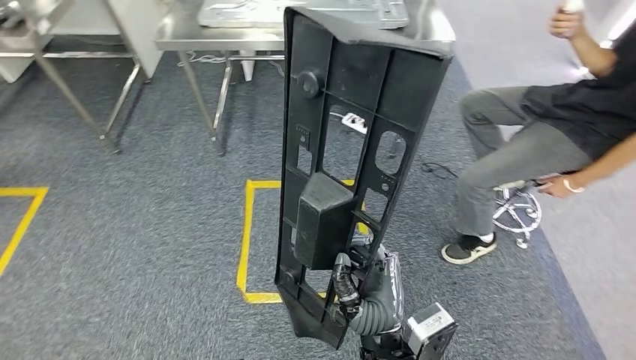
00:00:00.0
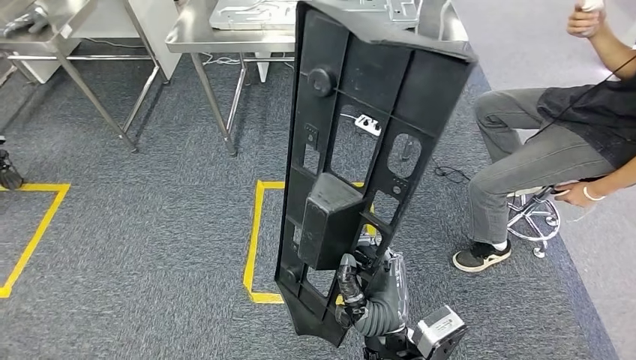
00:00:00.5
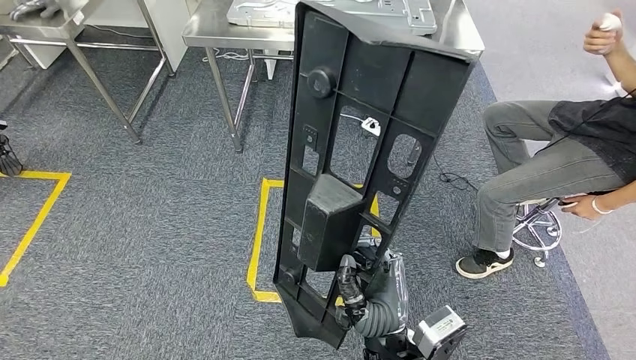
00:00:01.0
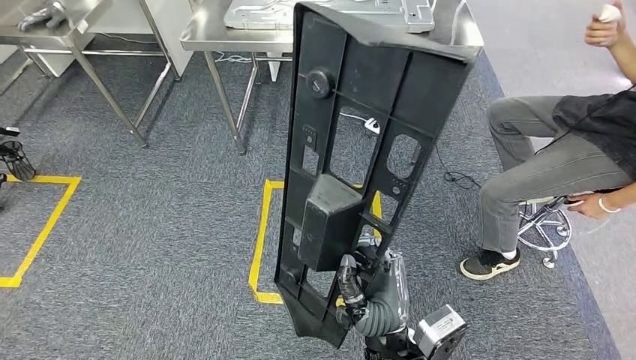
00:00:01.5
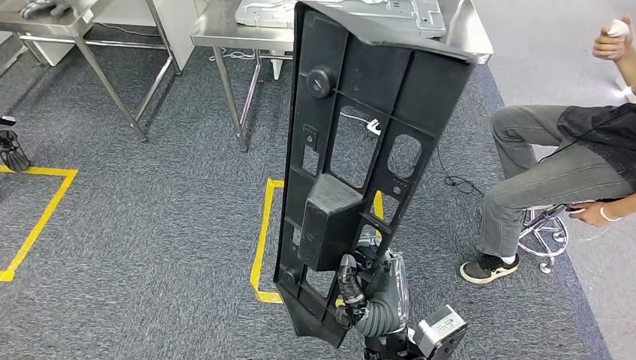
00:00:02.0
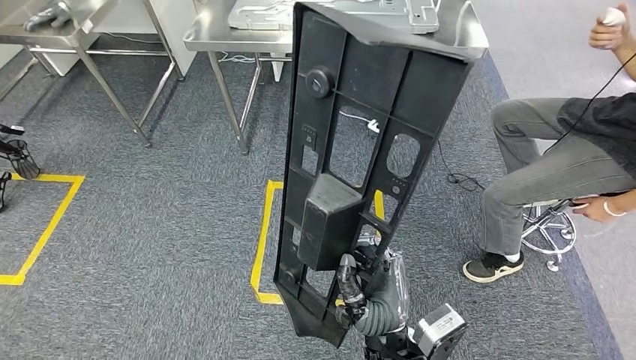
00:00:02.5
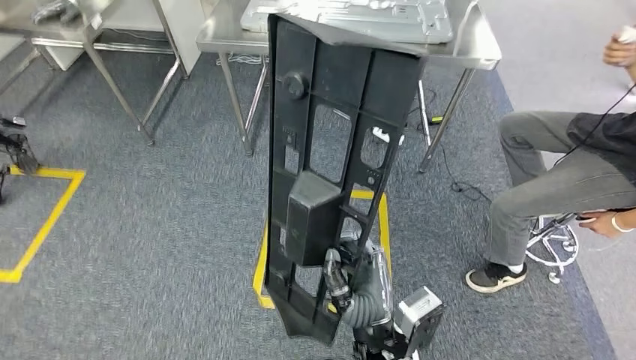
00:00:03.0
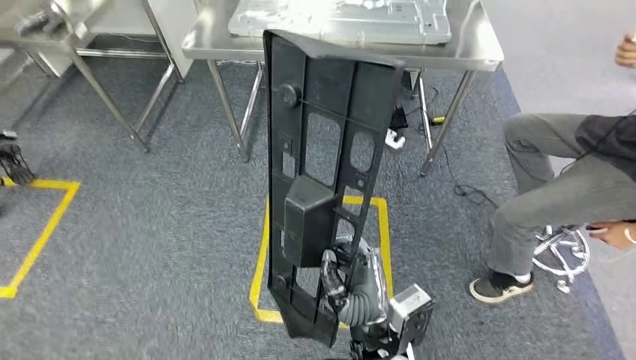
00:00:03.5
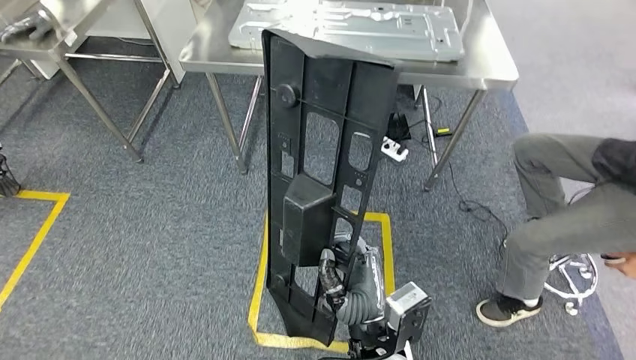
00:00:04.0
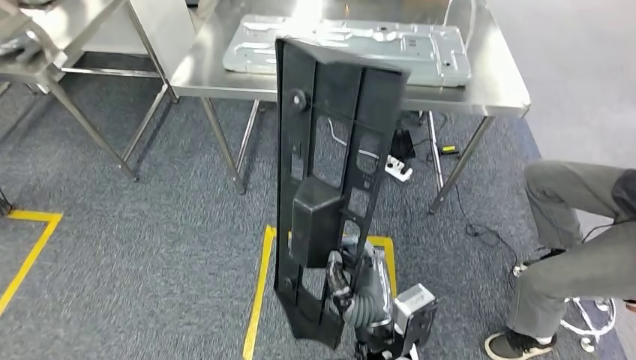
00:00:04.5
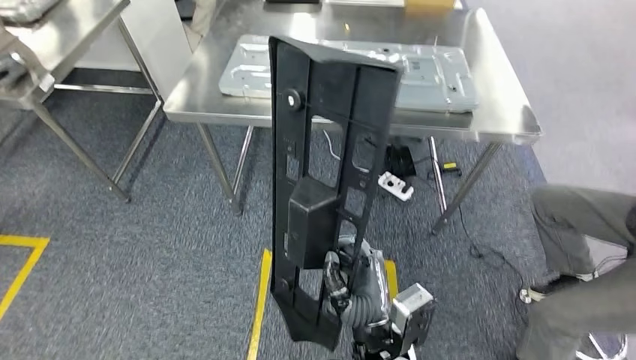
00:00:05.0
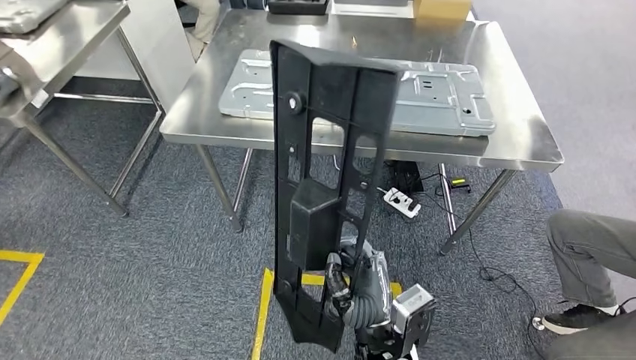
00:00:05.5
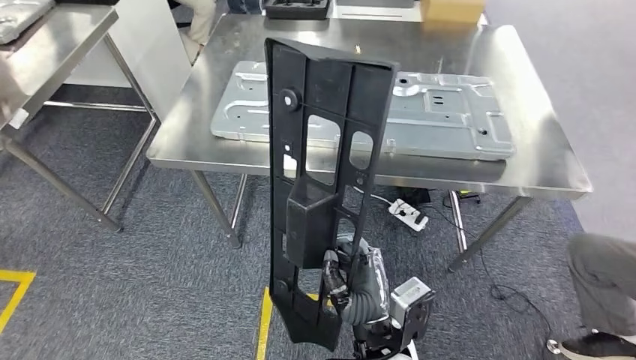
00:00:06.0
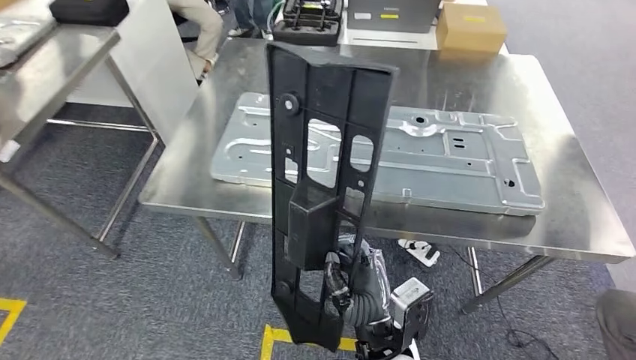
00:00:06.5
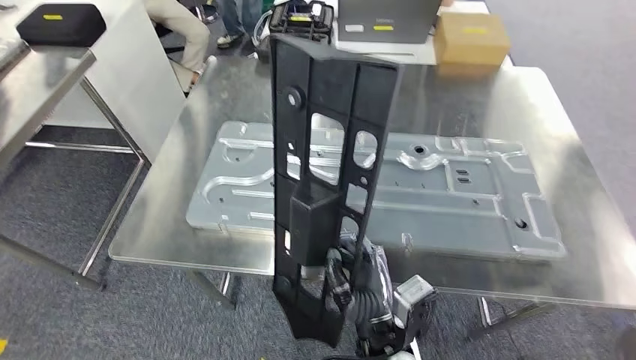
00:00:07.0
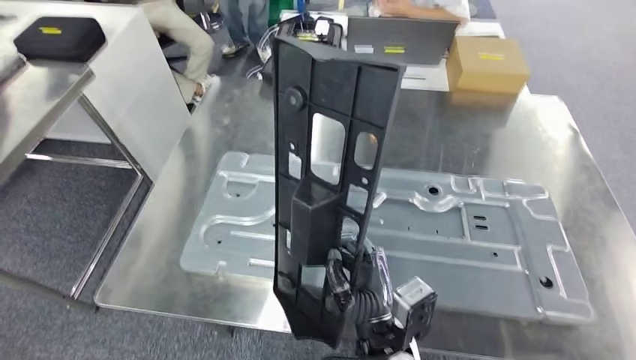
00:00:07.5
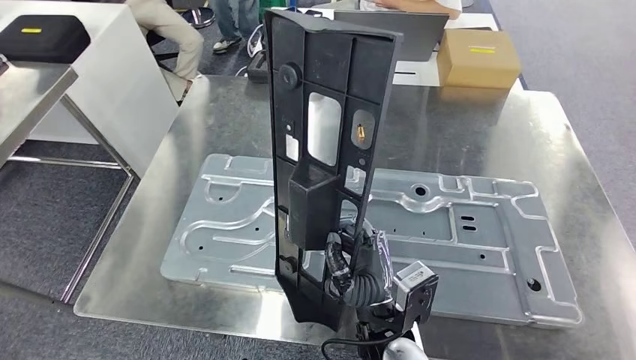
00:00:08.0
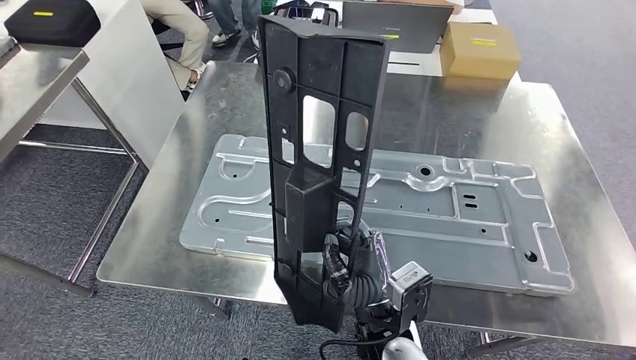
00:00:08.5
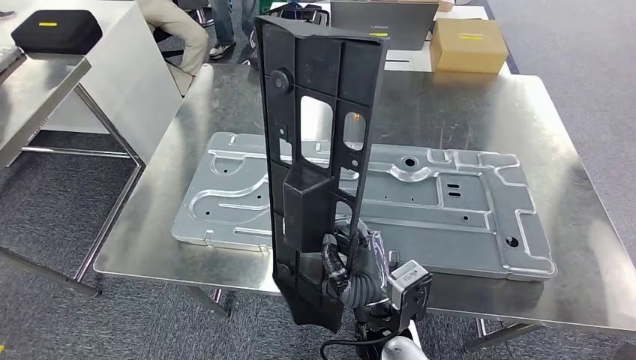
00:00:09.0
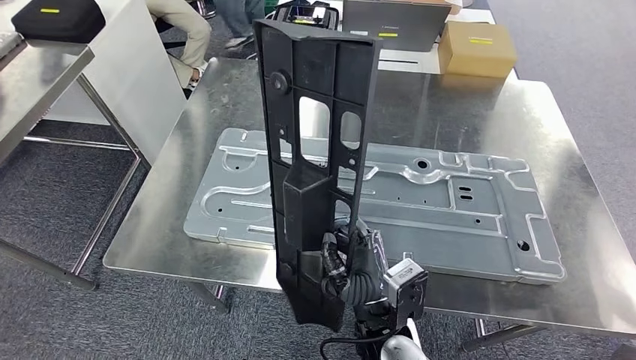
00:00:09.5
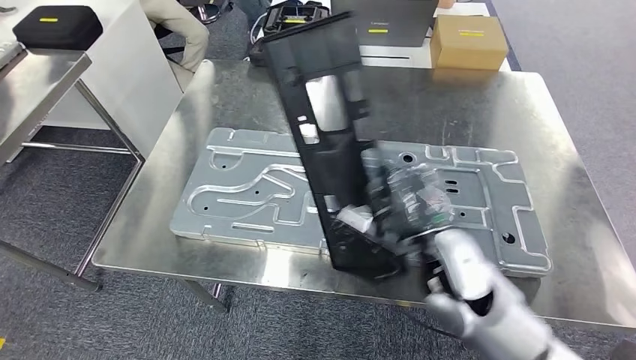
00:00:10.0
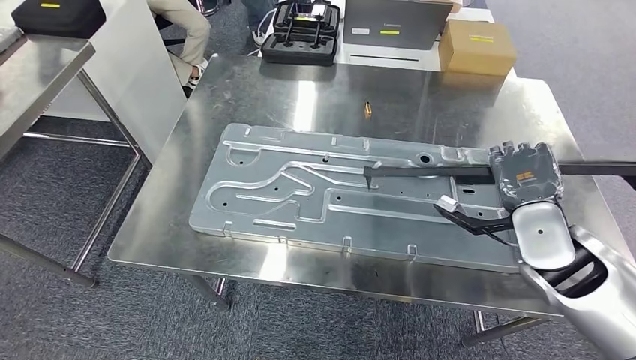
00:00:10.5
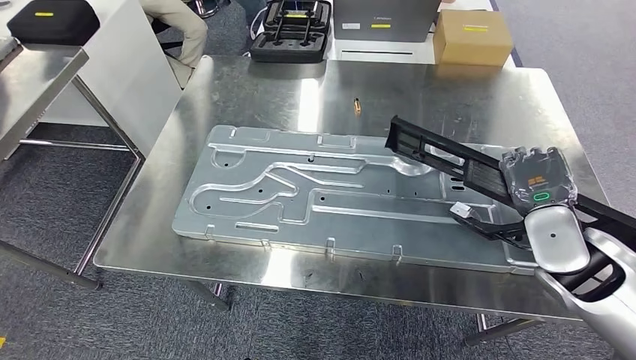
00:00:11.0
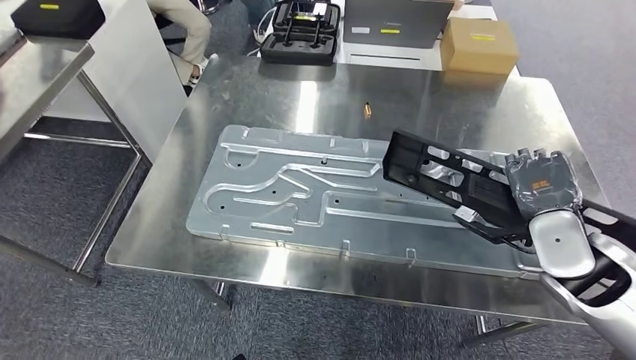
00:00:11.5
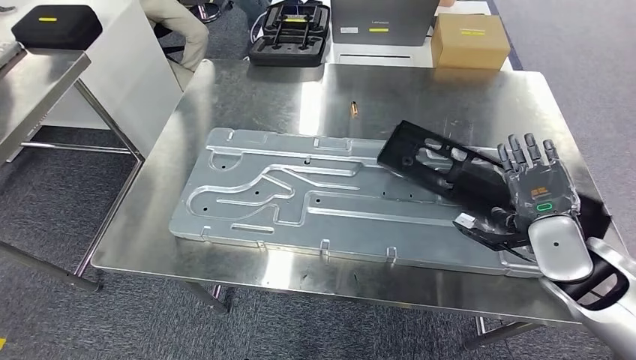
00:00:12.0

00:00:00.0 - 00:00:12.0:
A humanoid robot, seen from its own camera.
Step, 00:00:00.0 - 00:00:06.5: Move the large material to the workbench.

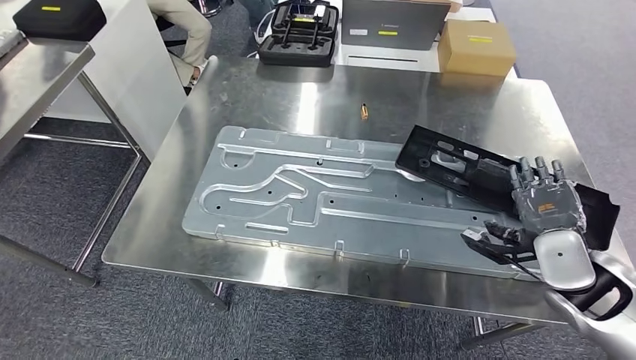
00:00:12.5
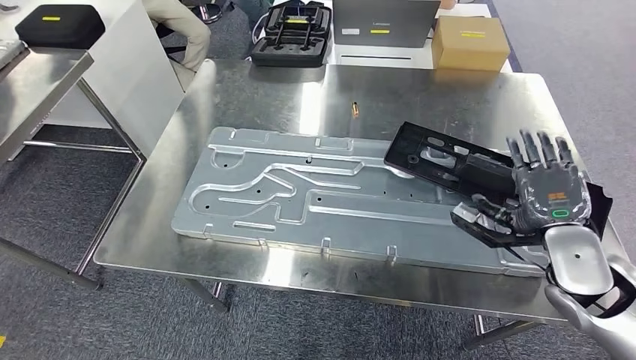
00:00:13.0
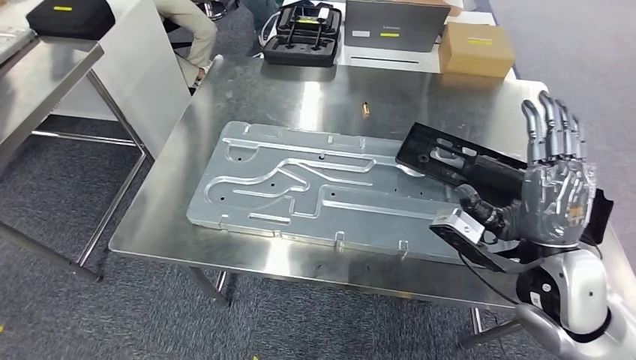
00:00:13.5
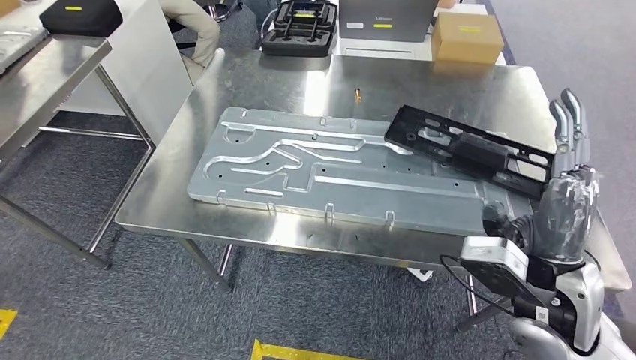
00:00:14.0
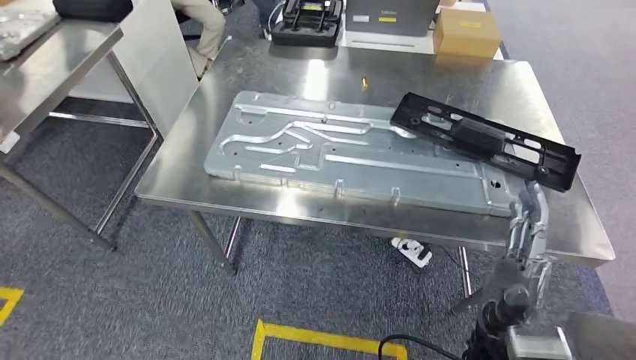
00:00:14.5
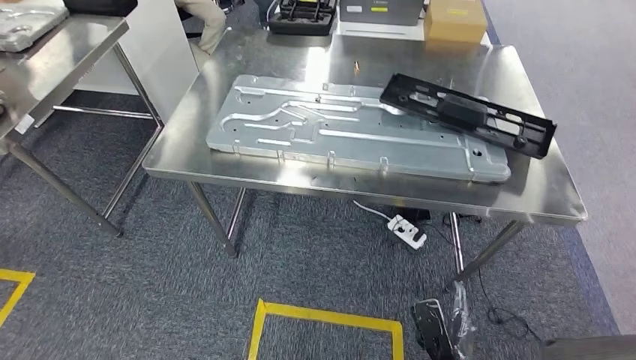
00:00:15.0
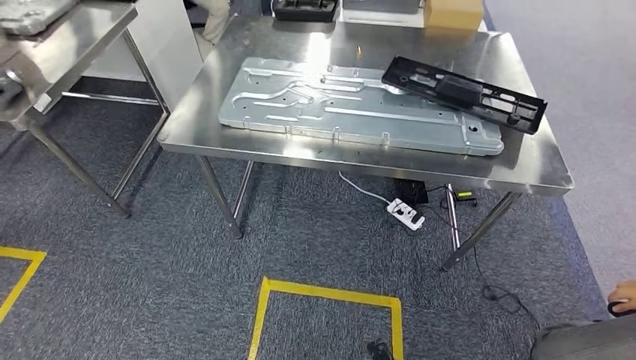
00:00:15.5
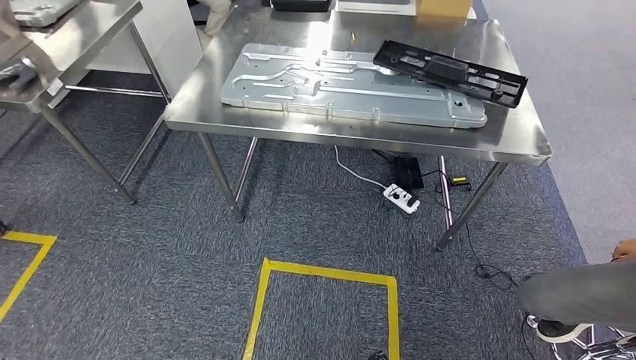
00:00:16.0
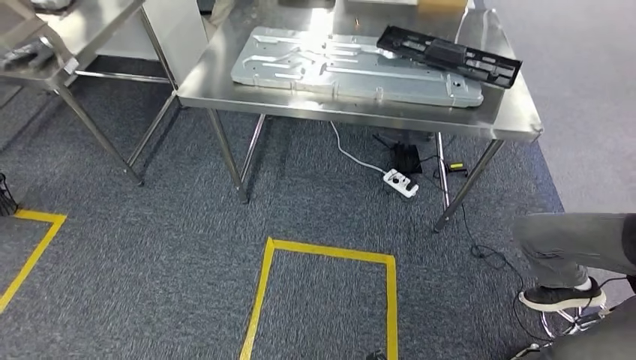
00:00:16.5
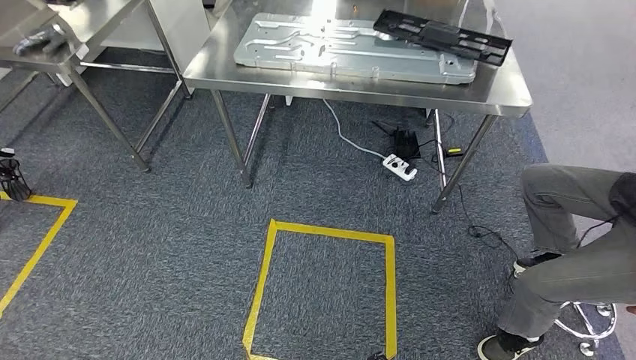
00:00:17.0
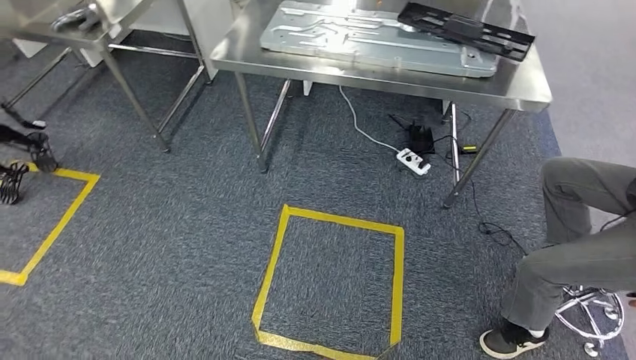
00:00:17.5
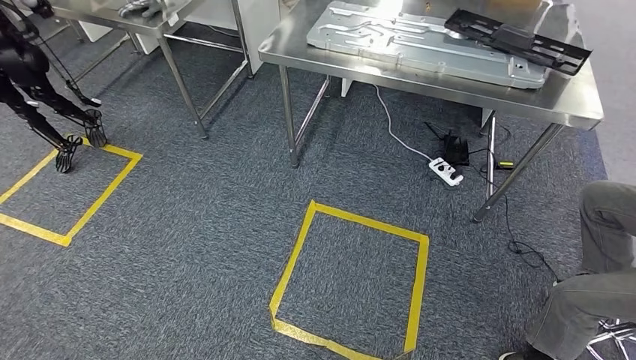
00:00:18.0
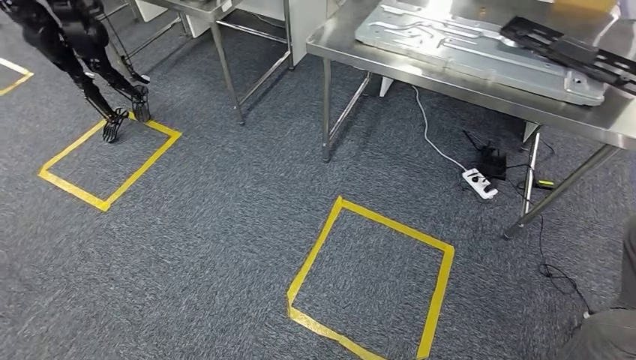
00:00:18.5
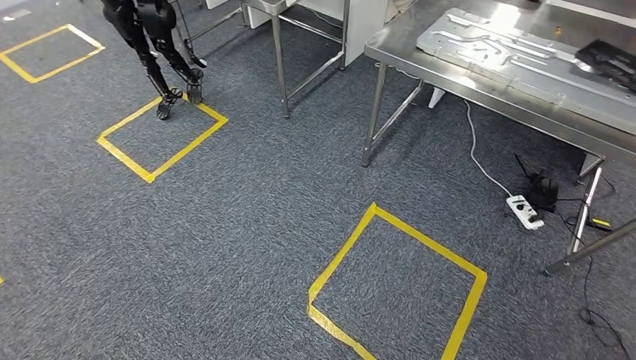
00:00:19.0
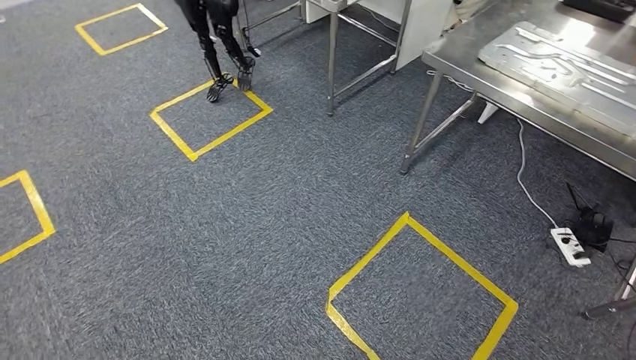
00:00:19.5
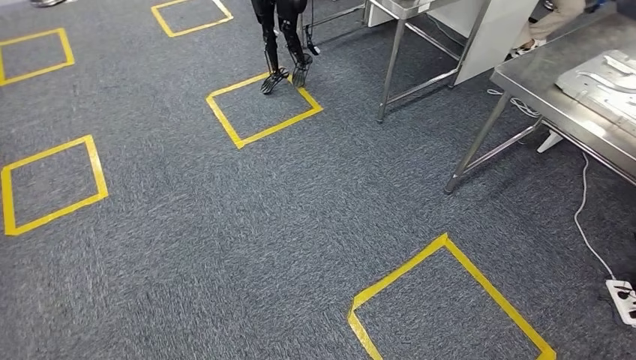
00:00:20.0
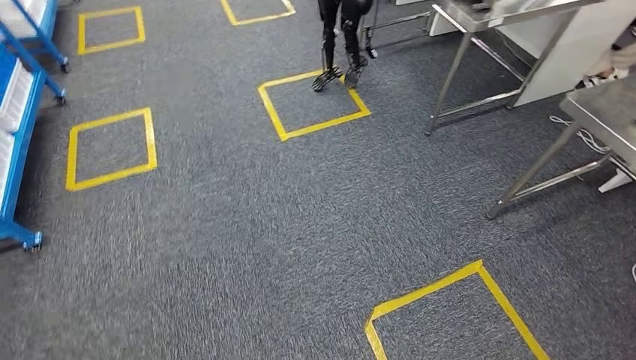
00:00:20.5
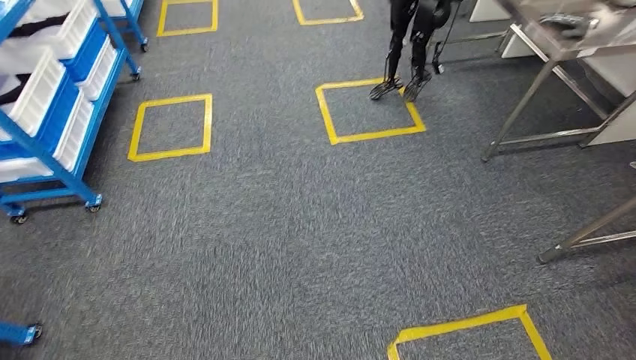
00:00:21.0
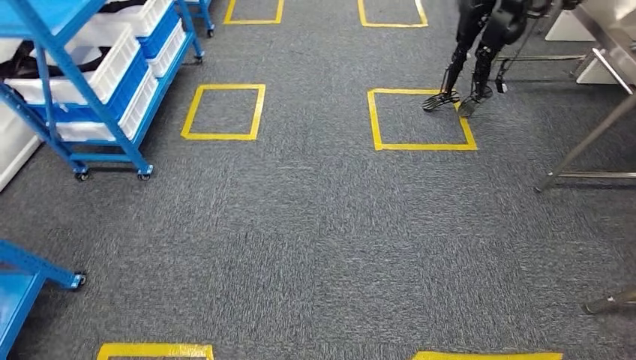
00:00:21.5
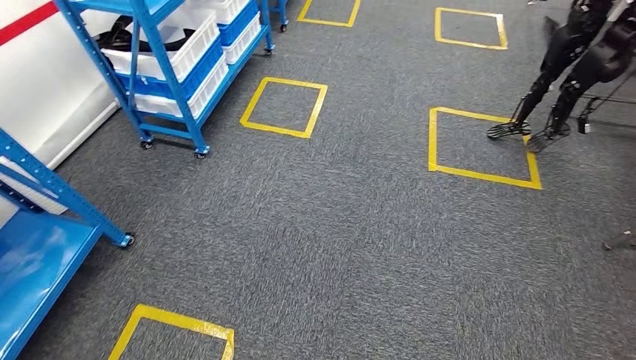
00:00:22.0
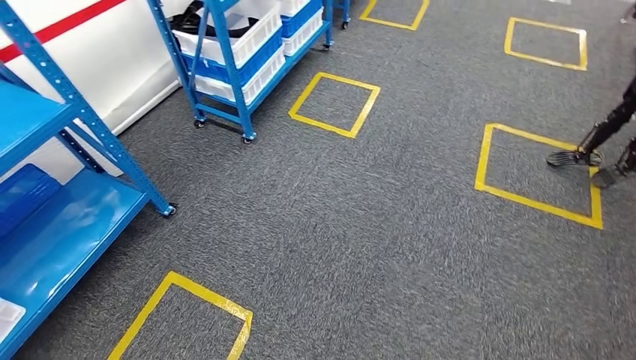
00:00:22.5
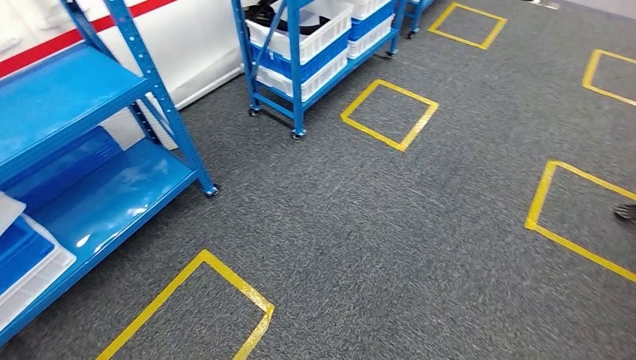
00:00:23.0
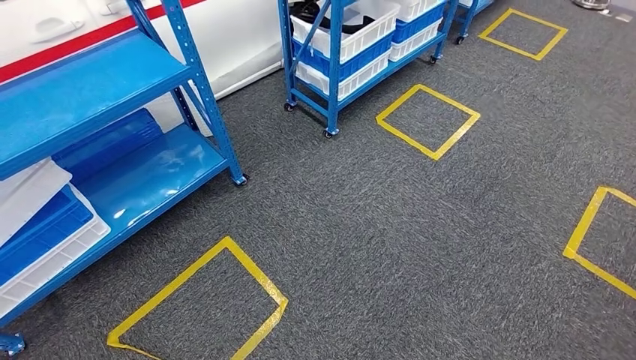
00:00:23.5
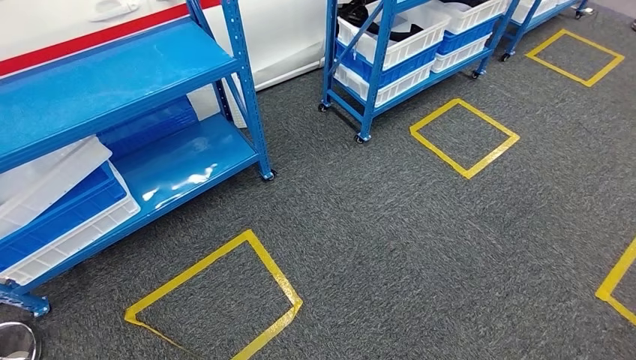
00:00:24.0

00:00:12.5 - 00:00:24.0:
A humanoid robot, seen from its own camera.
Step, 00:00:12.5 - 00:00:17.5: Insert the large material into the corresponding slot on the workbench.
